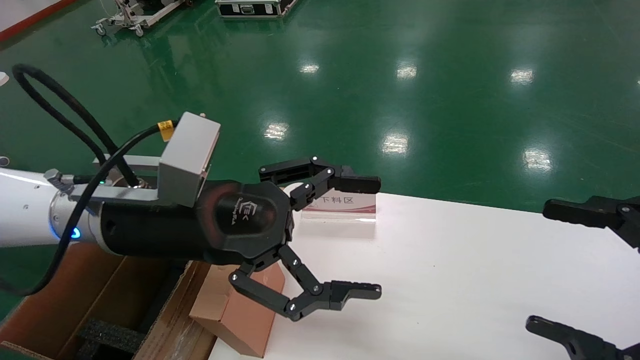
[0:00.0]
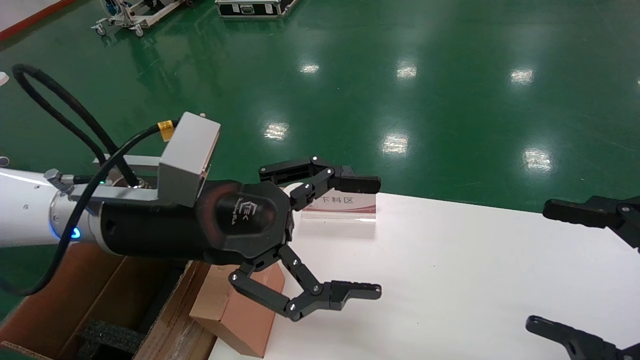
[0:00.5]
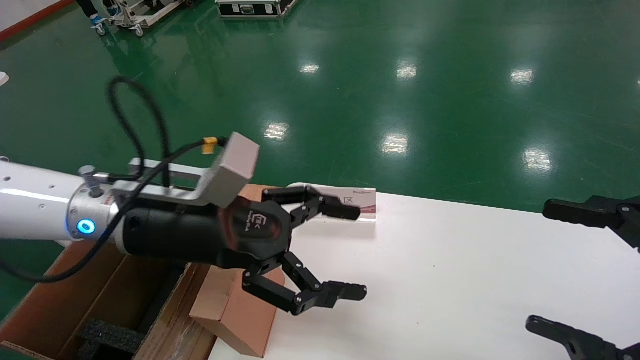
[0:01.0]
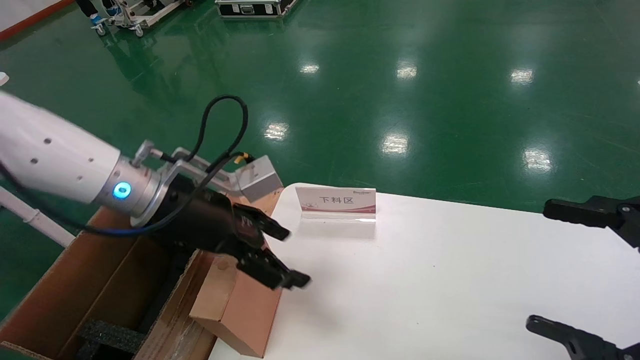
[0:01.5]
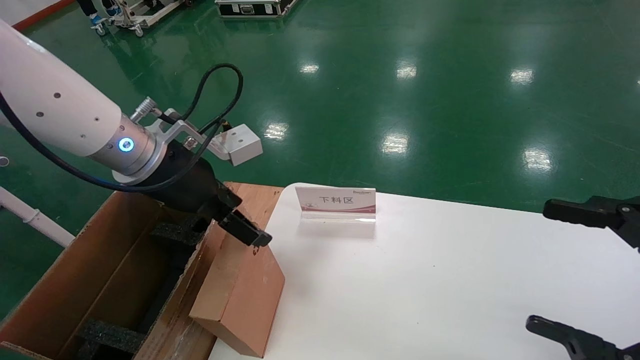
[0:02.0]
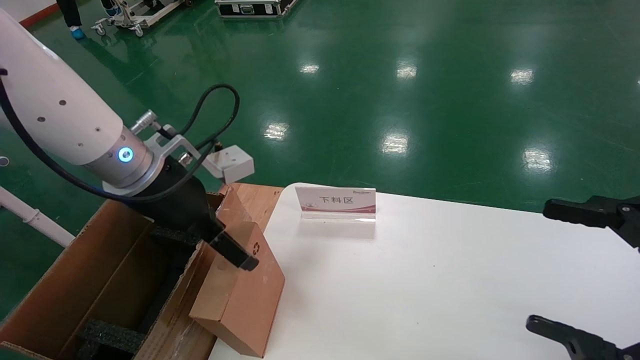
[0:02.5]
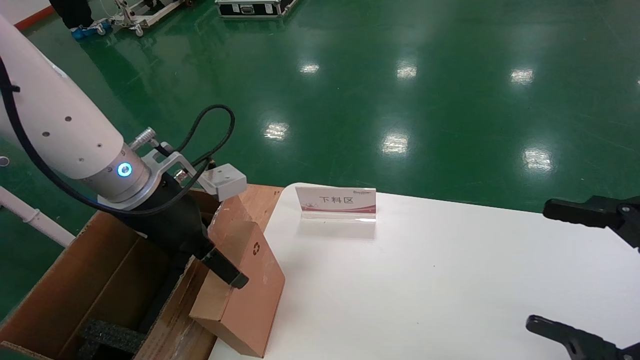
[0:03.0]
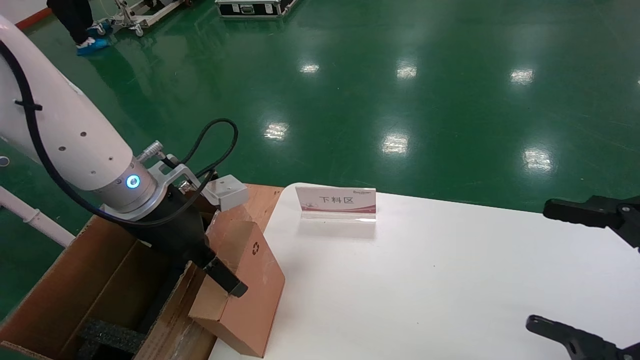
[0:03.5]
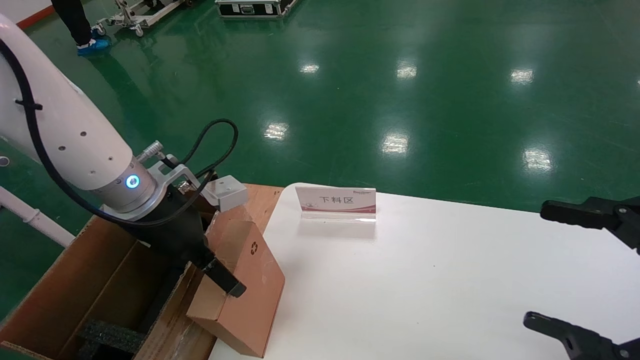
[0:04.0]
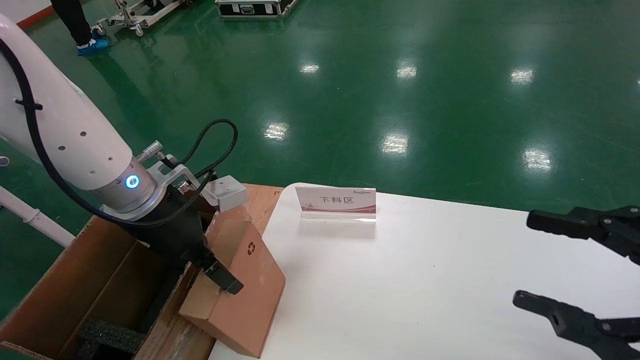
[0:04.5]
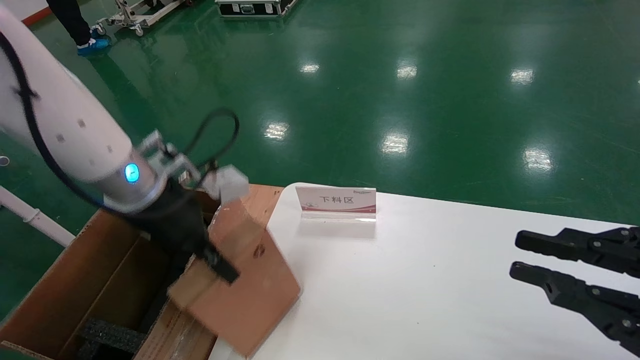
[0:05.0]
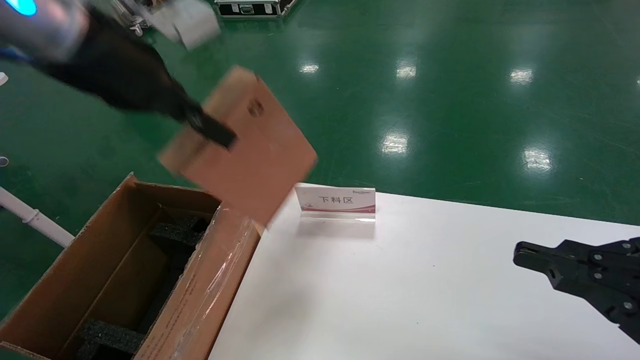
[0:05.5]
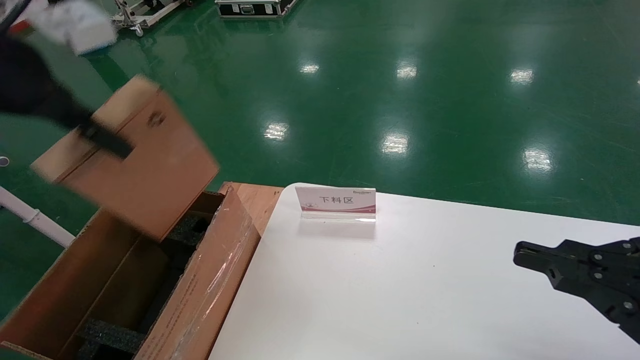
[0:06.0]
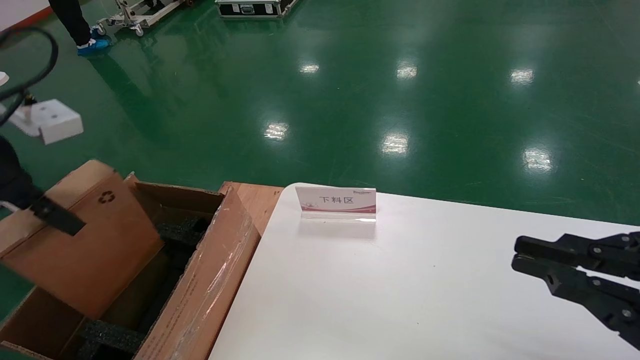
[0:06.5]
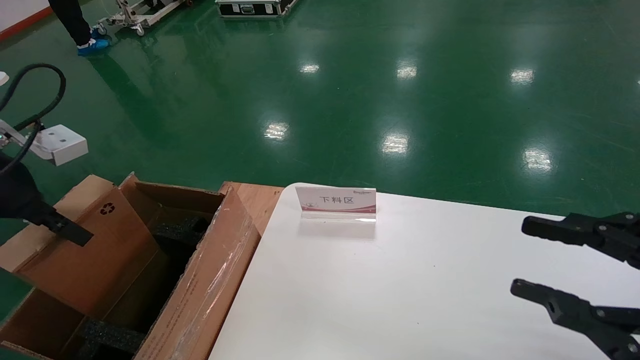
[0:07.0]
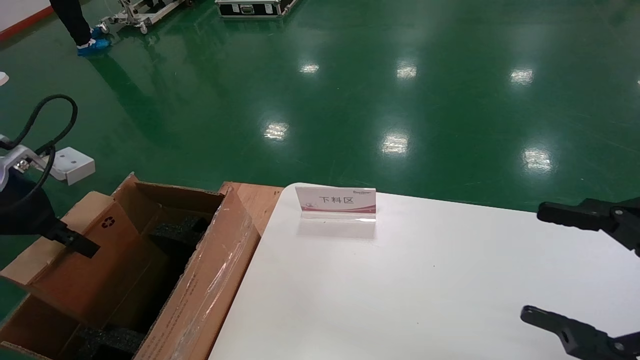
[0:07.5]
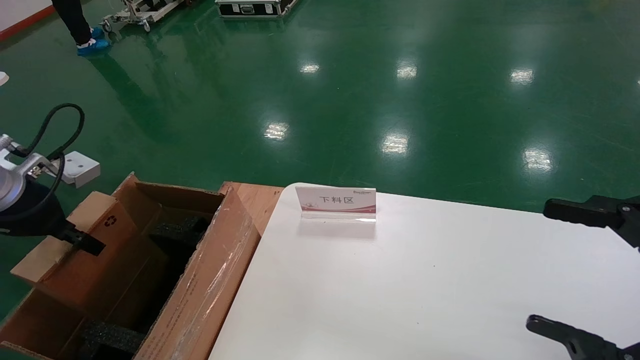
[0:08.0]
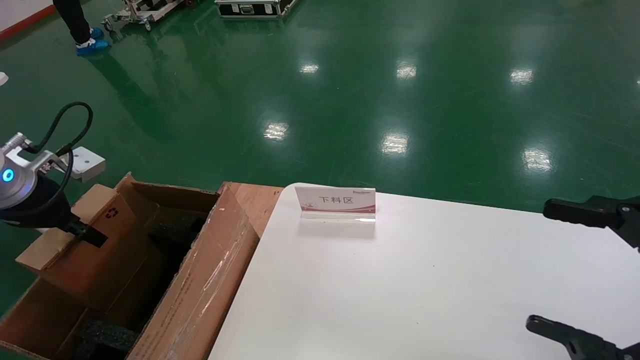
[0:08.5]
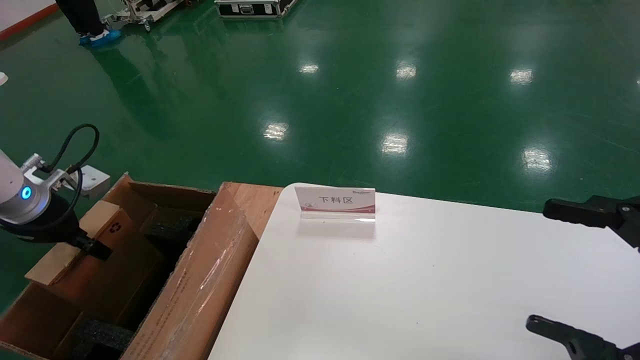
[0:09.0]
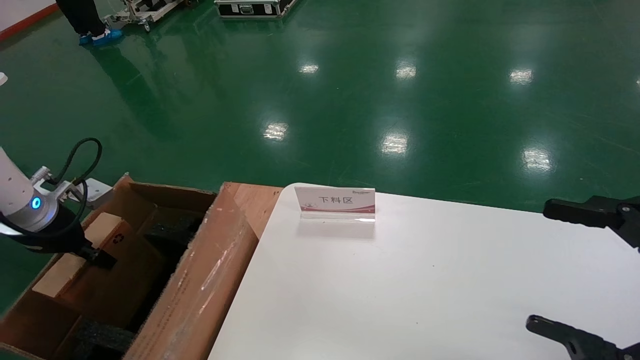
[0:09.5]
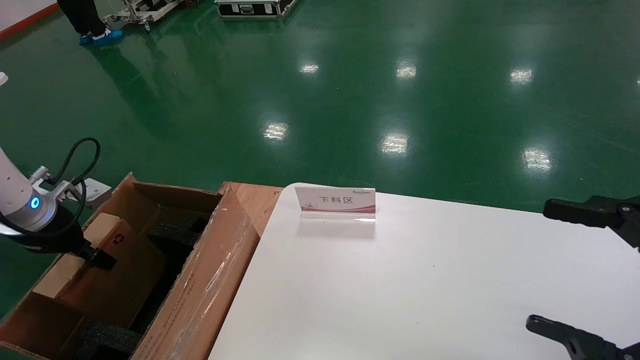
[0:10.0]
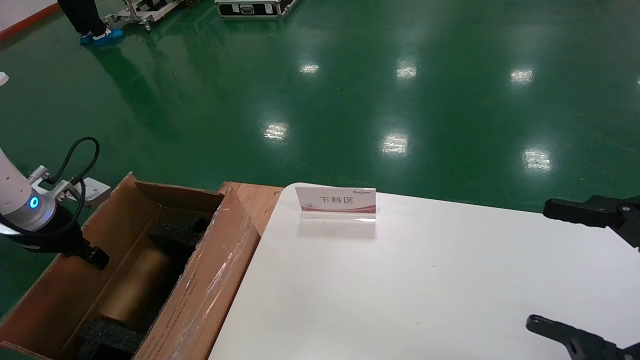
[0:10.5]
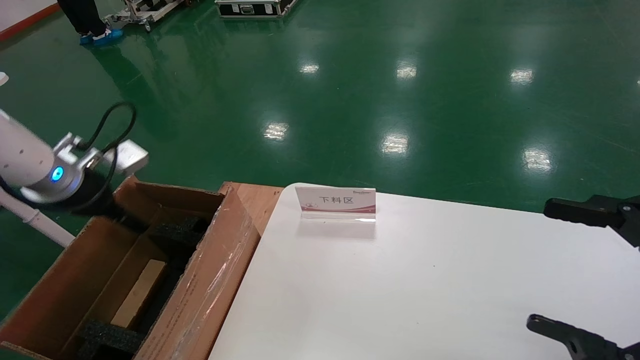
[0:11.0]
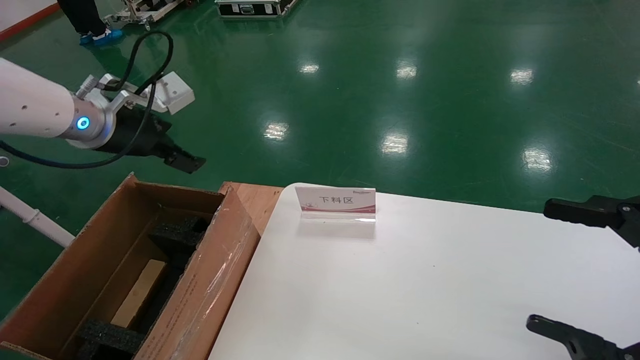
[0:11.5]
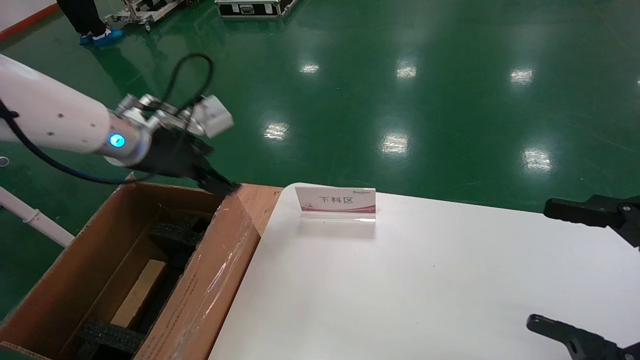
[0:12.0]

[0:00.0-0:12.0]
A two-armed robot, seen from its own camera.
Task of the whole recording: pick up the small cardboard box and load it into the large cardboard box.
Step, 0:01.0 to 0:06.0: Pick up the mouse and power cord box.
Step, 0:06.5 to 0:11.5: Place the mouse and power cord box into the case.
0:00.0 to 0:02.0: The left gripper goes roughly 5 cm forward.
0:02.0 to 0:04.0: The grippers stay close to where they were, moving slightly.
0:04.0 to 0:06.0: The right gripper closes its fingers; the left gripper shifts about 20 cm upward, backward and to the left, and closes up.
0:06.0 to 0:08.0: The right gripper opens its fingers, while the left gripper goes some 20 cm downward and to the left.
0:08.0 to 0:10.0: The left gripper is displaced downward by about 5 cm.
0:10.0 to 0:12.0: The left gripper travels to the right and upward by about 20 cm, and opens up.

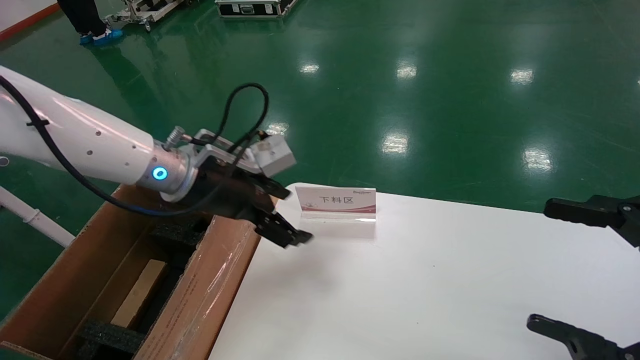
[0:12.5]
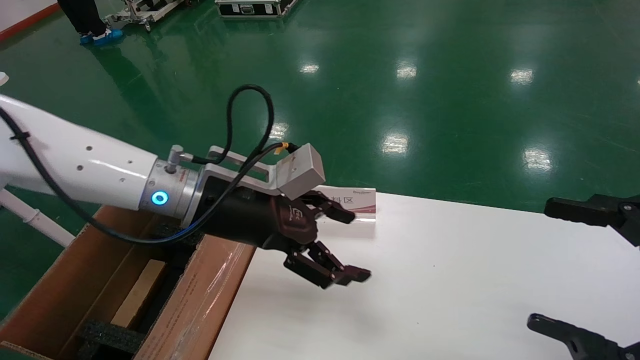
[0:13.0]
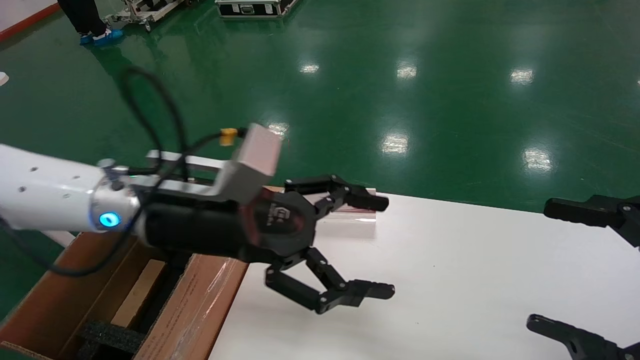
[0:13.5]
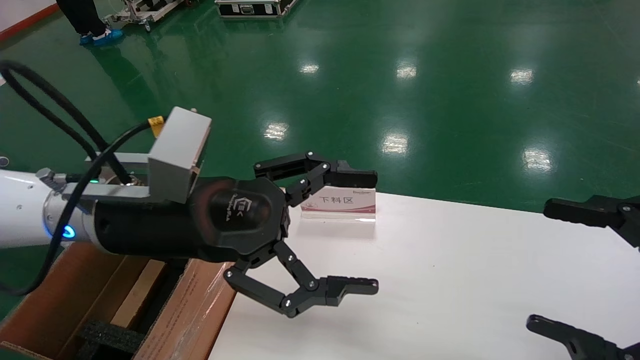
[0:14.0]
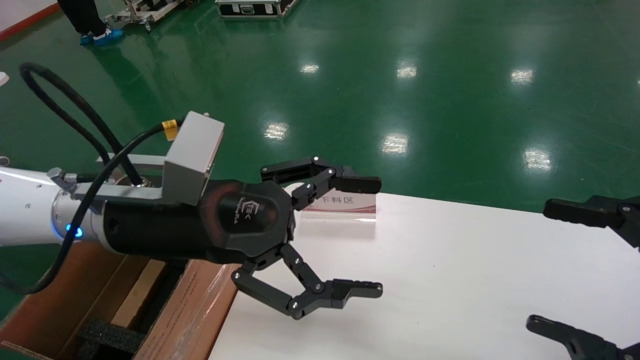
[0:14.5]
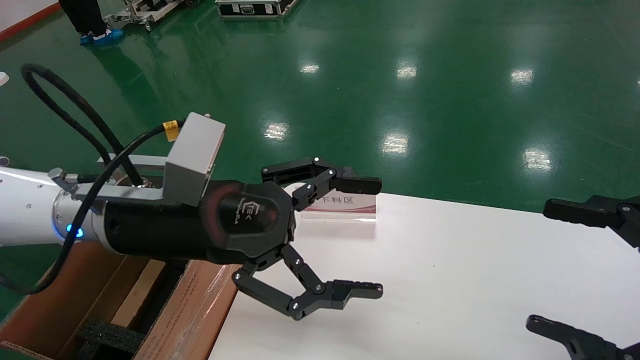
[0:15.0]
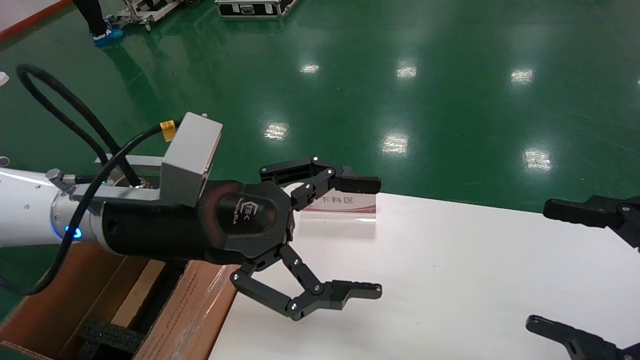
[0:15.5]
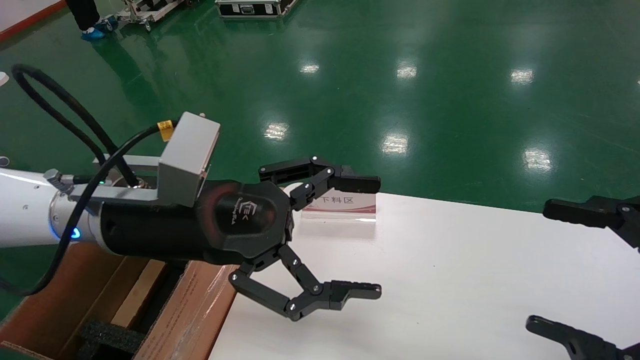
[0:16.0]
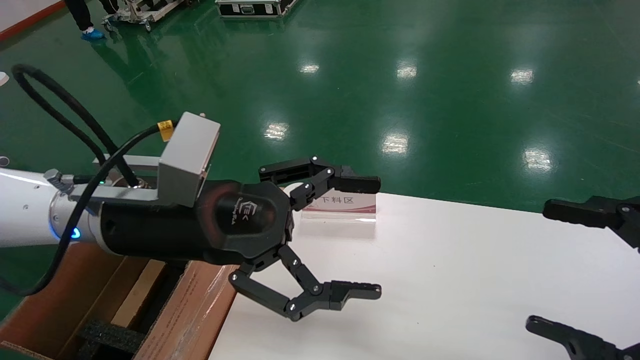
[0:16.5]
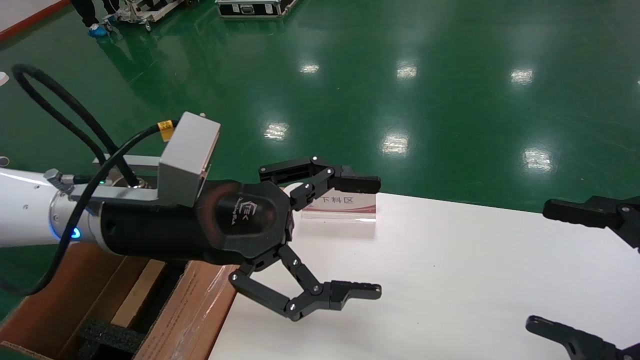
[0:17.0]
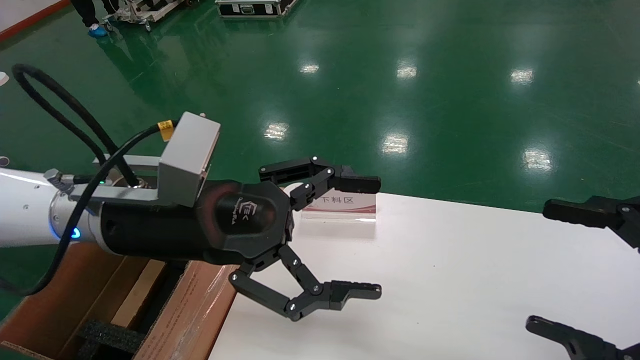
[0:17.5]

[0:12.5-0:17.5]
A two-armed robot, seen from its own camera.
Task of the whole recording: pick up the small cardboard box and load it into the large cardboard box.
0:12.5 to 0:15.0: The left gripper is displaced backward by approximately 10 cm.
0:15.0 to 0:17.5: The two grippers keep their place.
